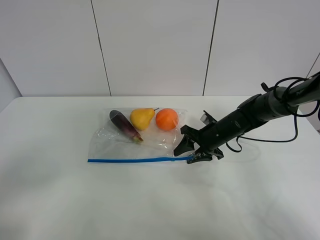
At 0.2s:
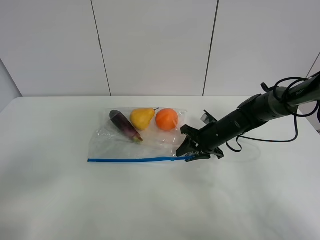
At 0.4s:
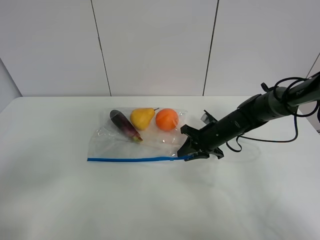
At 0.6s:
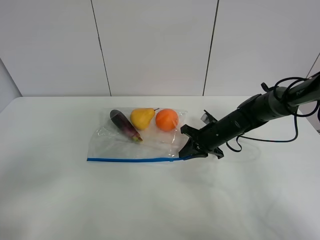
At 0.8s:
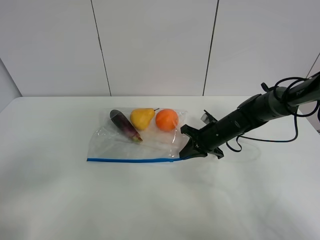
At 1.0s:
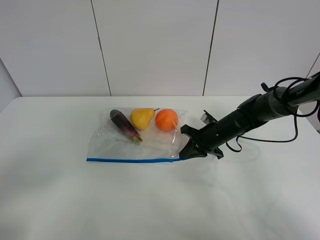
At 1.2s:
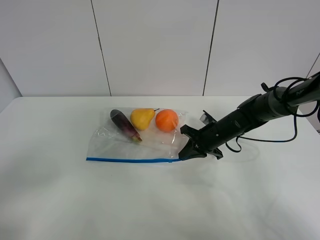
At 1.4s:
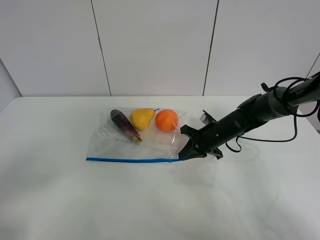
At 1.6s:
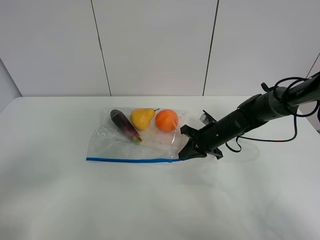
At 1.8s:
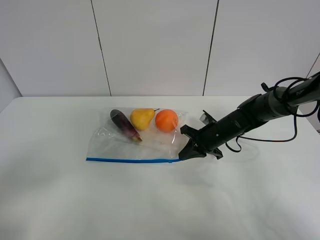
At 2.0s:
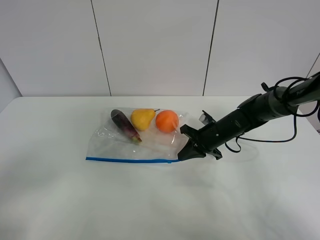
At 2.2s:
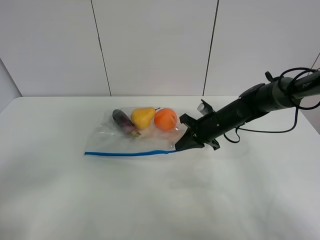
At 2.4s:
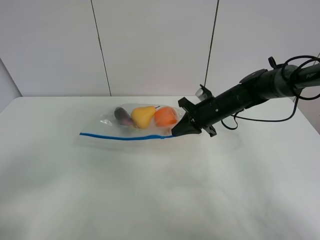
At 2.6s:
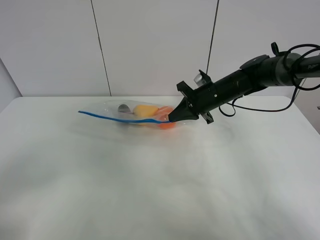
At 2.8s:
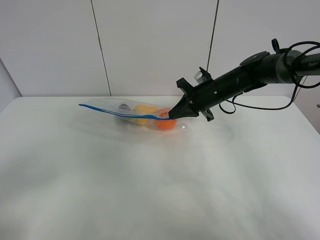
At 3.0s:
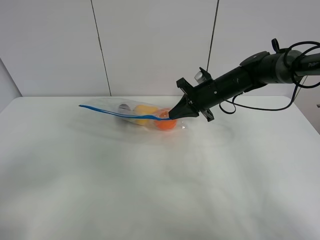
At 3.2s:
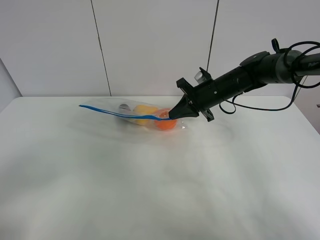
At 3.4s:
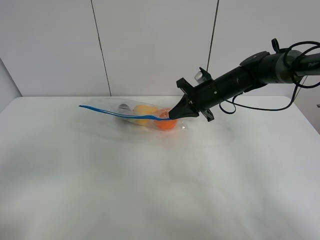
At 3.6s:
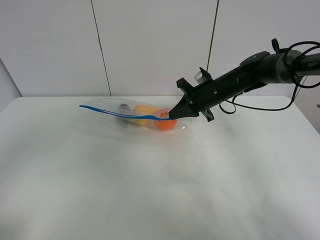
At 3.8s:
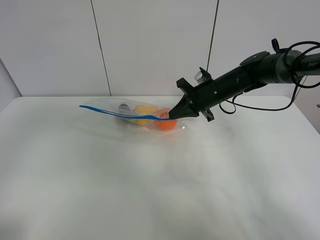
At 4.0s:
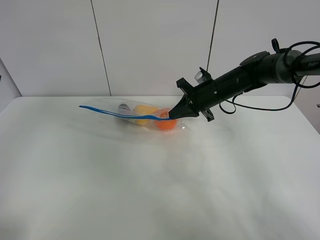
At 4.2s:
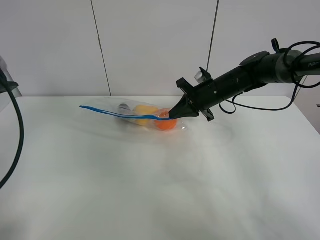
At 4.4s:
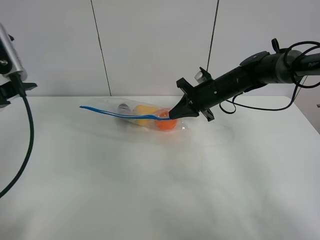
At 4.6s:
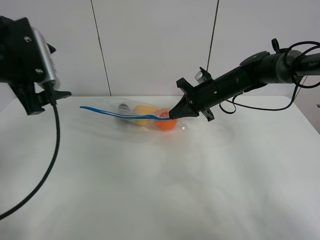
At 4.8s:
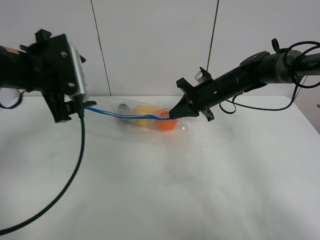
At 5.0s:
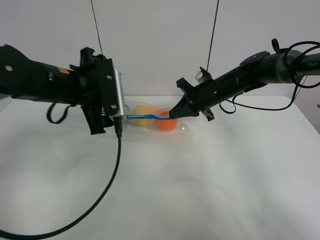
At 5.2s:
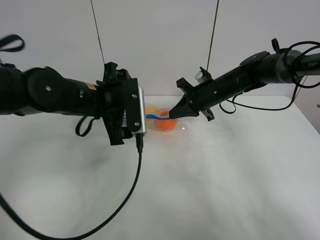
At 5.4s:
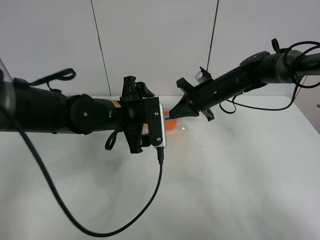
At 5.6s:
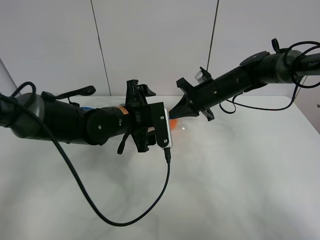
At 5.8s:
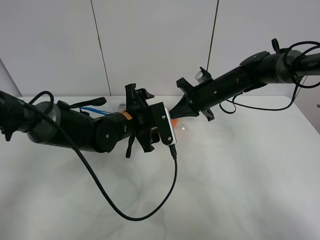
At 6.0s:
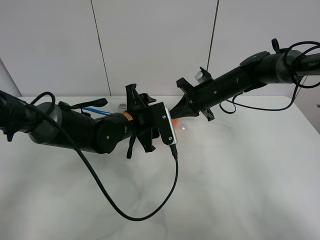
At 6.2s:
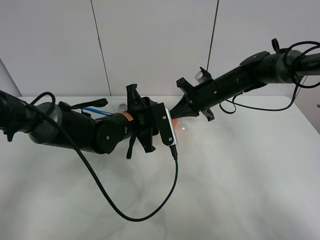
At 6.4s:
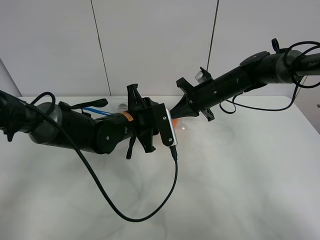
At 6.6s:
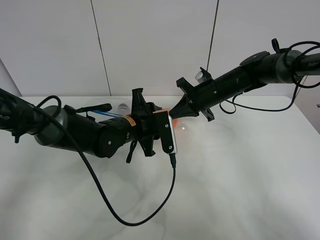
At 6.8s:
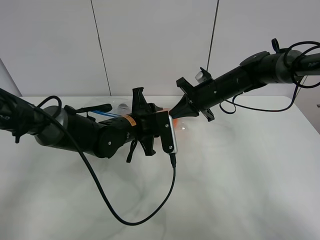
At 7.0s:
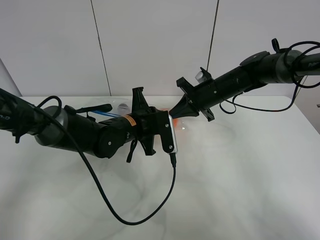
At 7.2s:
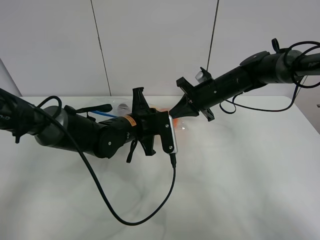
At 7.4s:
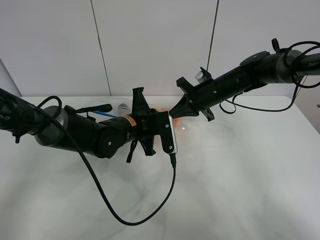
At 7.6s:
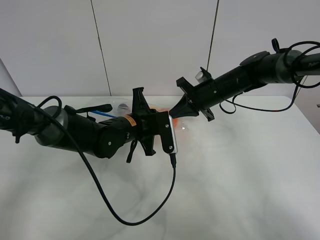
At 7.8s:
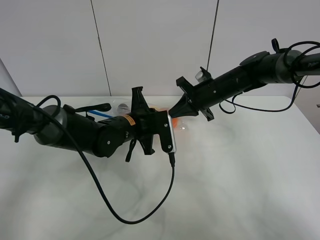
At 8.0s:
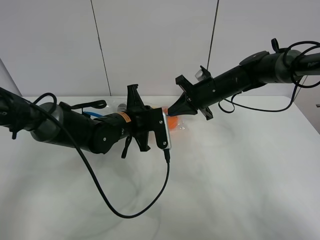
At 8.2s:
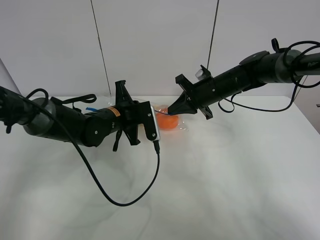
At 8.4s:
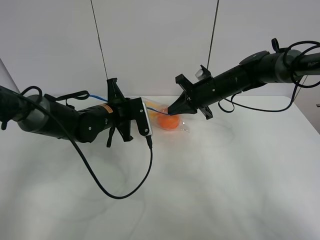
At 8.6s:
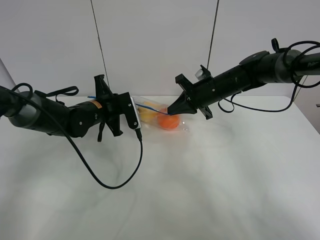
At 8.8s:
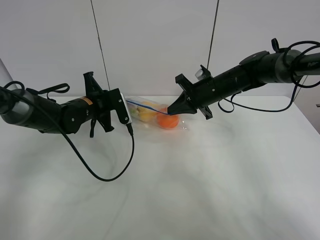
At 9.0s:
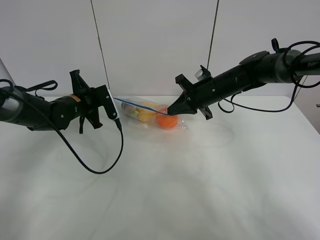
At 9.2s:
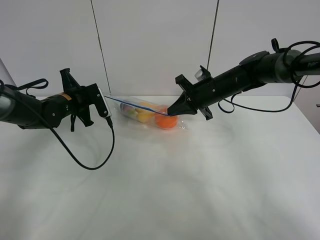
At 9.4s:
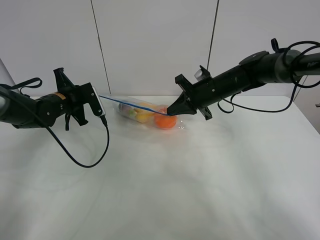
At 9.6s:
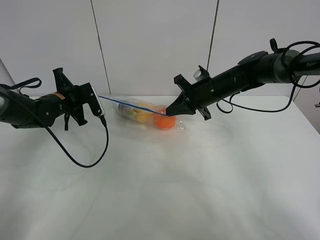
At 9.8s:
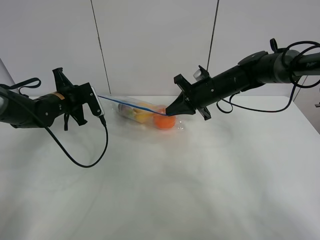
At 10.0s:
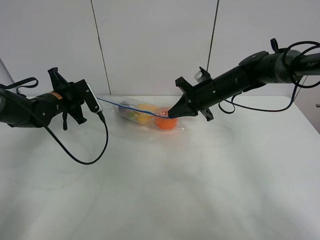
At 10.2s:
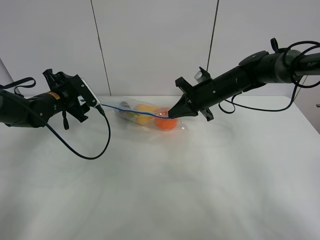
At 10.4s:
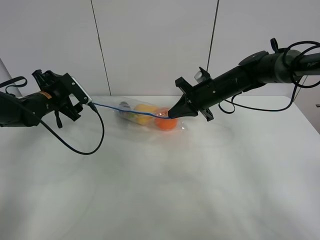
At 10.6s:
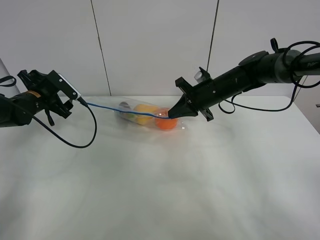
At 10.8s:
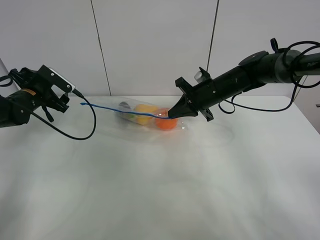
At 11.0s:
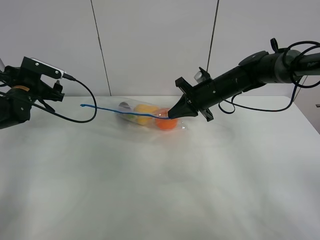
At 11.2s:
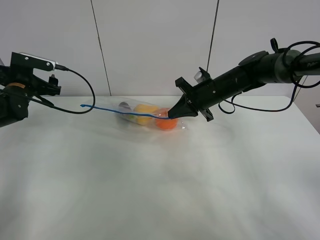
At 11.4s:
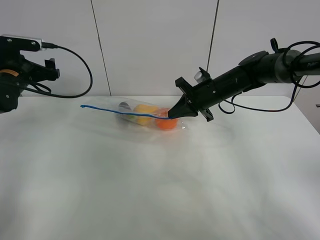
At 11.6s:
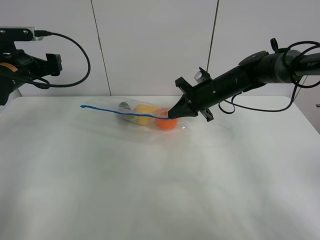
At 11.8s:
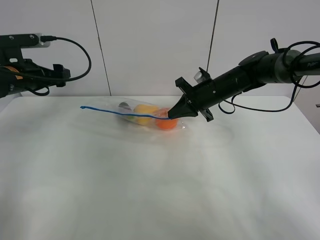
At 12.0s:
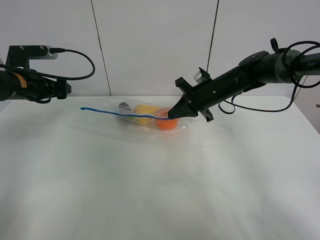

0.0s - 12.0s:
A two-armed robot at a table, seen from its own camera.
Step, 1.2s - 3.0s: Lift the fruit bag with your right gripper.
Step, 3.2s - 10.2s: Pull the fruit bag with left gripper.
0.0s - 1.6s: The right gripper closes up.
1.6s - 3.0s: The right gripper heads upward, covering about 10 cm.
3.0s - 4.4s: The left gripper shifts roughly 25 cm forward.
4.4s - 6.0s: The left gripper travels to the right and downward by roughly 30 cm, and closes.
6.0s - 7.6s: The left gripper closes.
7.6s - 9.0s: The left gripper moves to the left and forward, some 20 cm.
9.0s - 10.4s: The left gripper is displaced to the left by some 10 cm, and opens its fingers.
10.4s - 12.0s: The left gripper moves upward, some 5 cm.

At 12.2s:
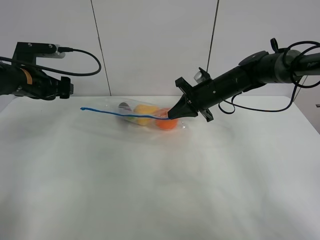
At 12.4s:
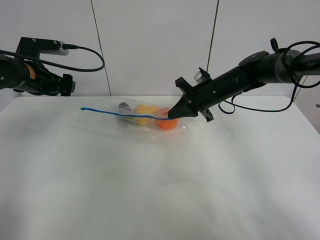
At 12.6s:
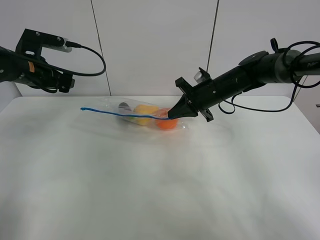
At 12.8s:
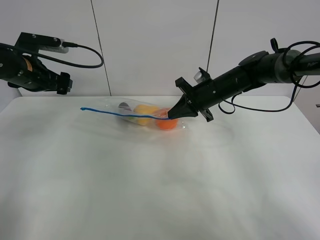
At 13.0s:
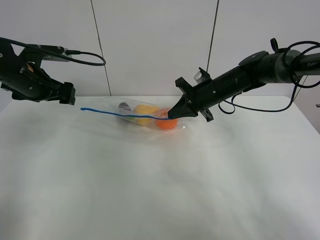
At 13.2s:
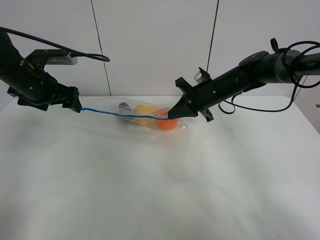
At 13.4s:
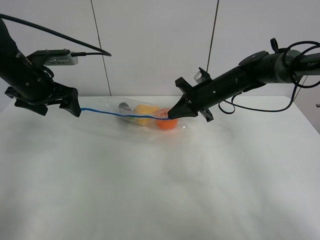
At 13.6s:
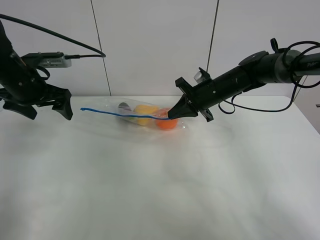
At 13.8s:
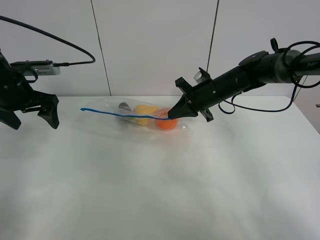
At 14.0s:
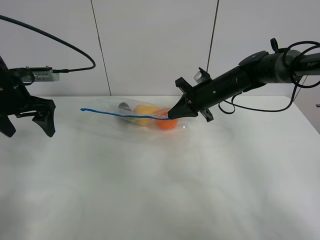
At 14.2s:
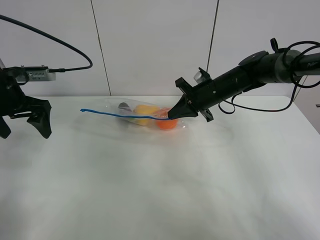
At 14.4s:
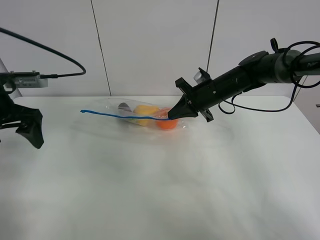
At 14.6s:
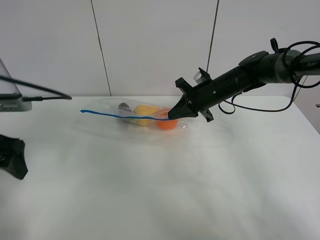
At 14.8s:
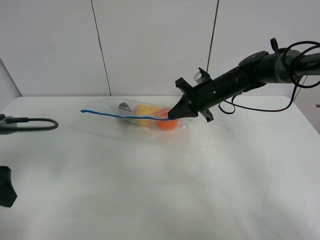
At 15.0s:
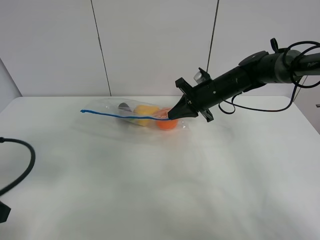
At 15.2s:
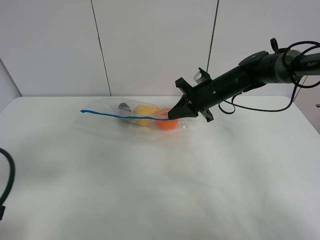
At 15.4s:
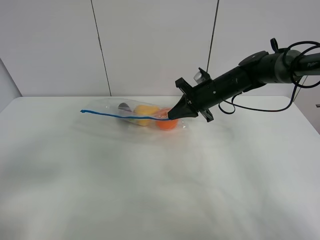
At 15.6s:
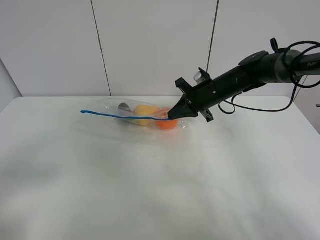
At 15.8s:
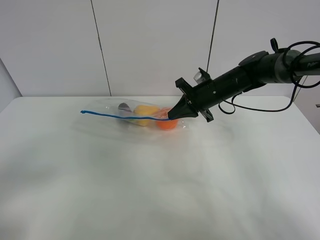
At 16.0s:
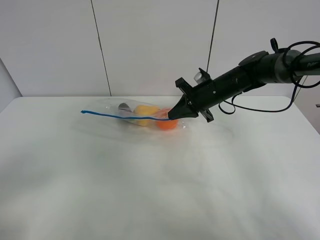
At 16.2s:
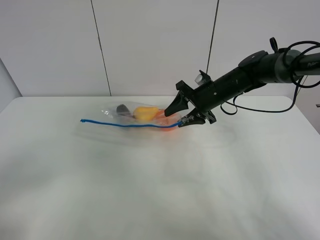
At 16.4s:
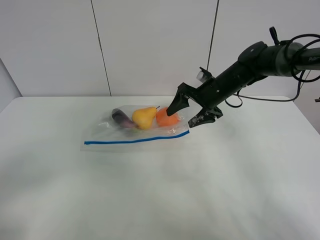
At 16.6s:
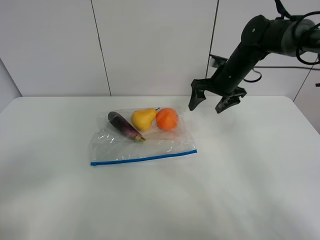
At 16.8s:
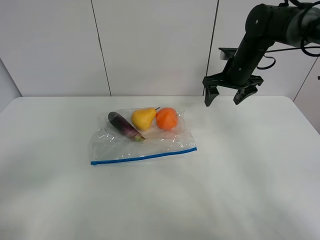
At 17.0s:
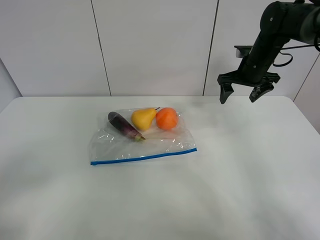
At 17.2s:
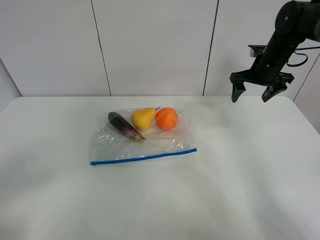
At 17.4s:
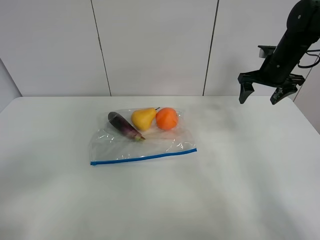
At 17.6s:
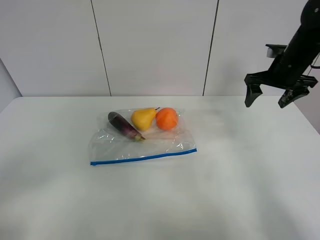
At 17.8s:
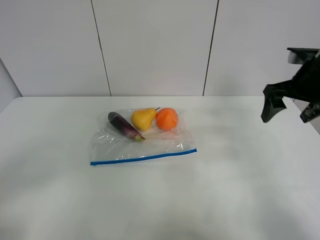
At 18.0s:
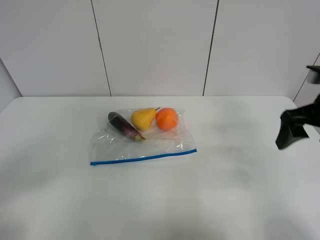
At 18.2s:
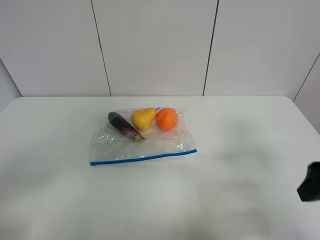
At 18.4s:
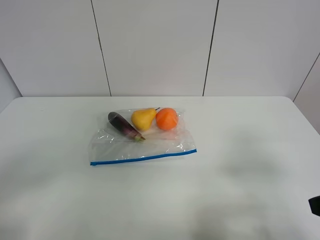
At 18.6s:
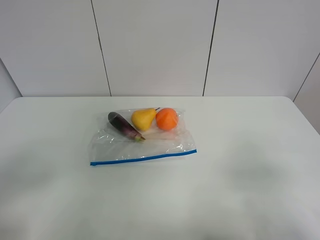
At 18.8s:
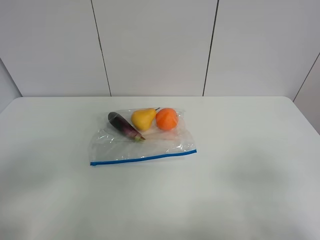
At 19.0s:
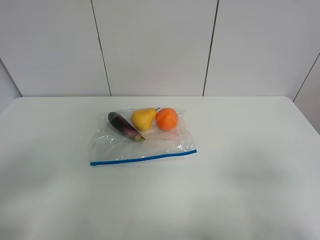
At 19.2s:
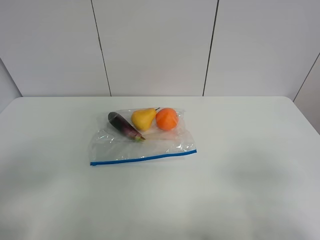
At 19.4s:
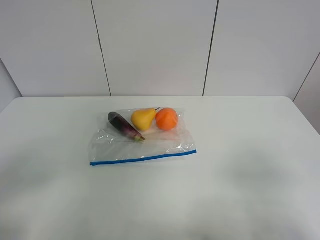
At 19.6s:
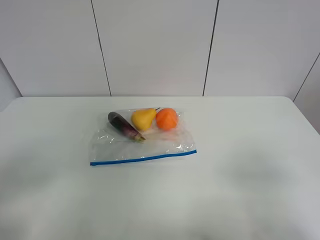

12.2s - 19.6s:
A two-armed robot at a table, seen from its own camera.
13.6s - 15.2s: The left gripper moves backward, roughly 25 cm.
15.2s - 16.6s: The left gripper is displaced backward by approximately 10 cm. The right gripper shifts by roughly 5 cm, and opens up.
16.6s - 18.2s: The right gripper goes roughly 30 cm backward.
18.2s - 19.6s: The right gripper heads backward, covering some 10 cm.

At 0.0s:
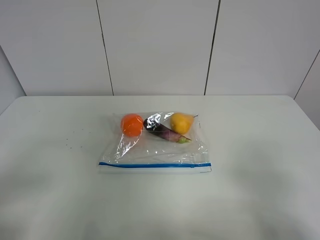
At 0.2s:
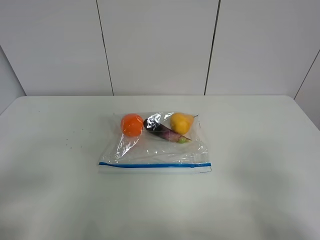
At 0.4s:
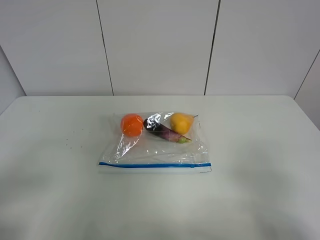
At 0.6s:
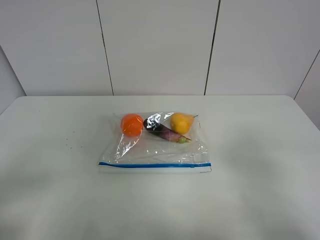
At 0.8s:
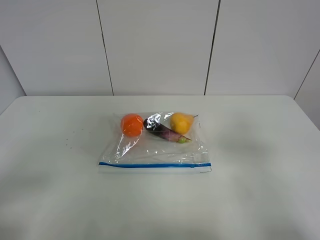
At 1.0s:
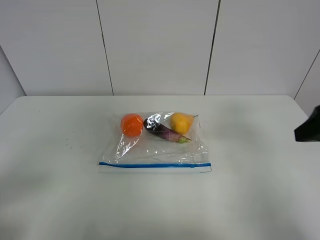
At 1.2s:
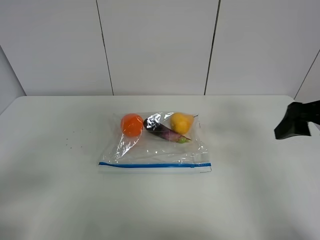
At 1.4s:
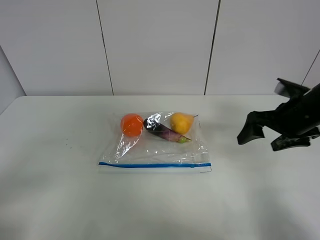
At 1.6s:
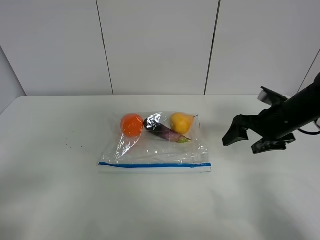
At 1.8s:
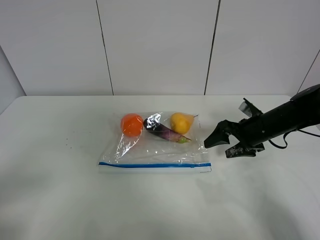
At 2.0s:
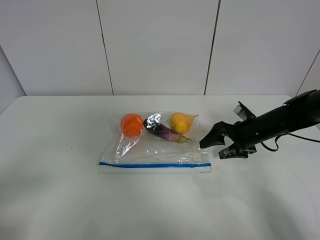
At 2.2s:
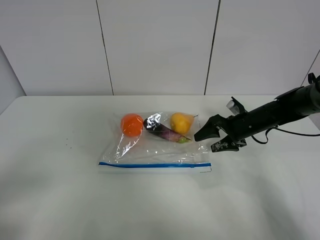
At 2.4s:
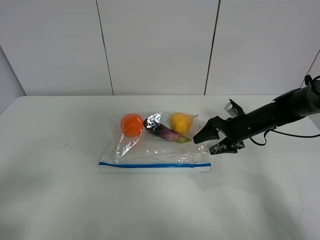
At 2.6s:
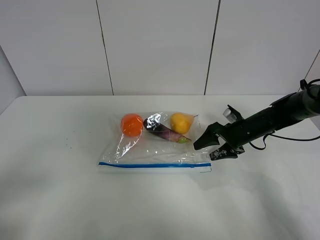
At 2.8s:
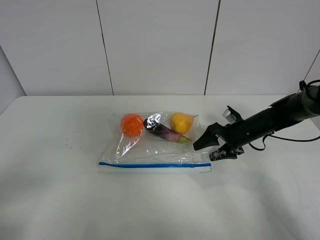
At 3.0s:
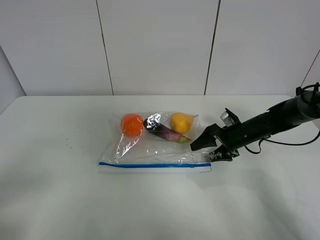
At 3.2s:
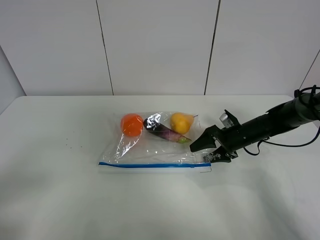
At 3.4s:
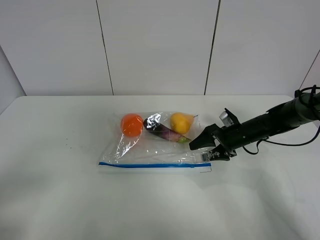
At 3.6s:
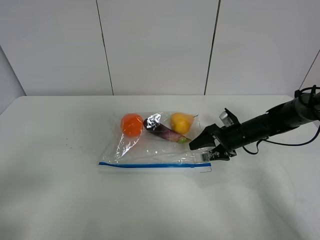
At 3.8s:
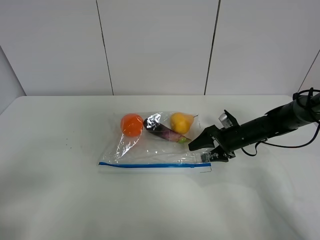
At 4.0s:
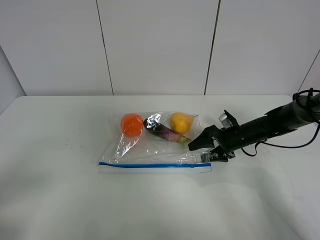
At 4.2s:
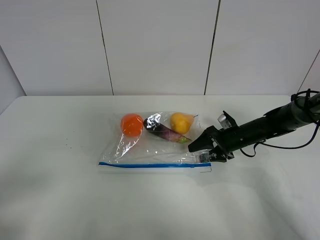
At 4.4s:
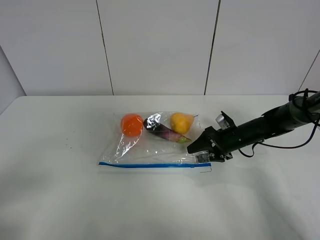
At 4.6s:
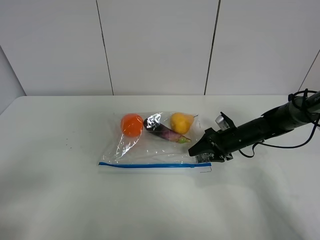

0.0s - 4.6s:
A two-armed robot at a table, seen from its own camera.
0.0s - 1.6s: The right gripper shifts about 30 cm forward.
1.6s - 3.0s: The right gripper moves downward and forward, about 10 cm.
3.0s - 4.6s: There are only small adjustments of the grippers.
